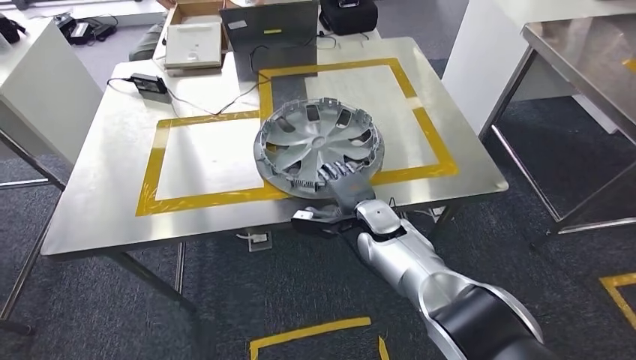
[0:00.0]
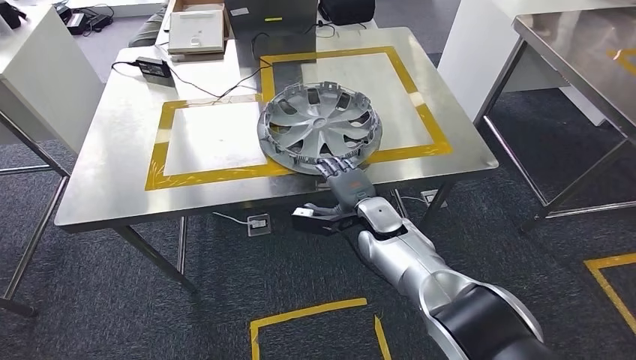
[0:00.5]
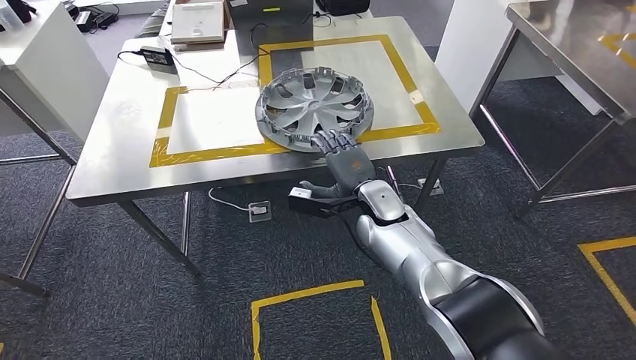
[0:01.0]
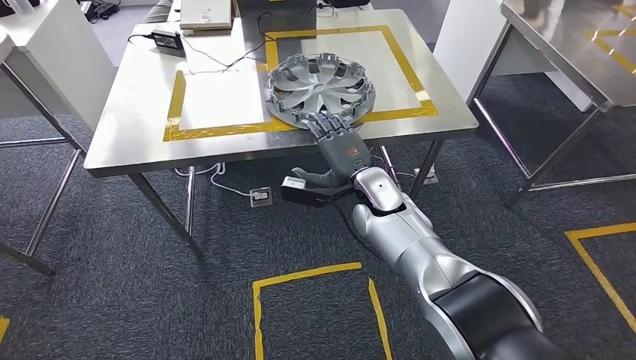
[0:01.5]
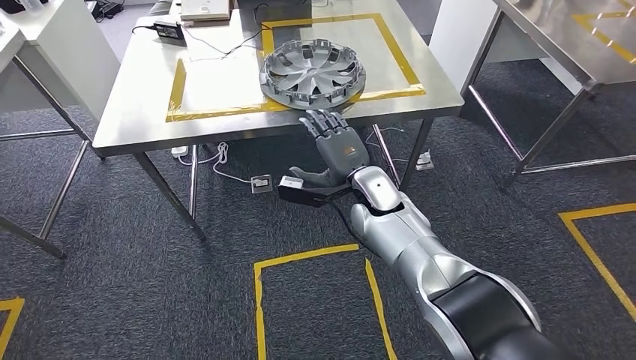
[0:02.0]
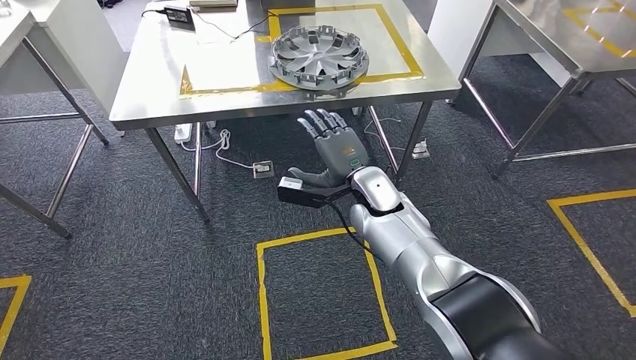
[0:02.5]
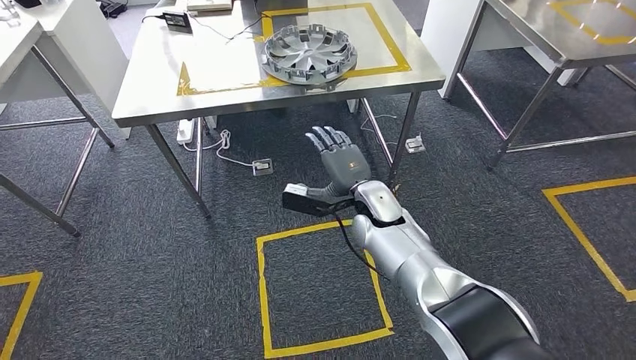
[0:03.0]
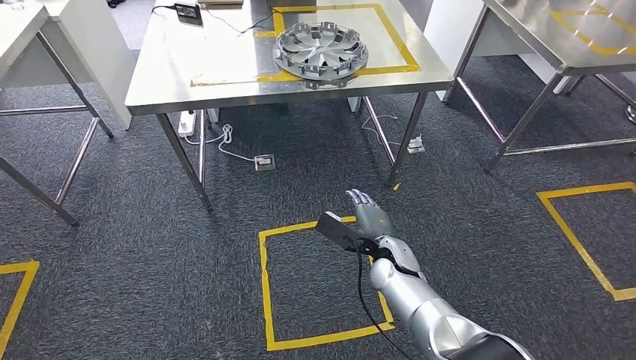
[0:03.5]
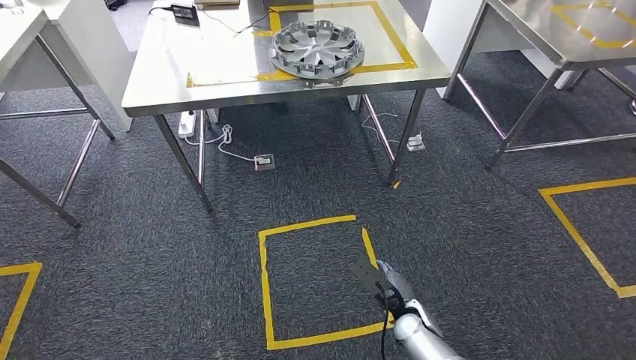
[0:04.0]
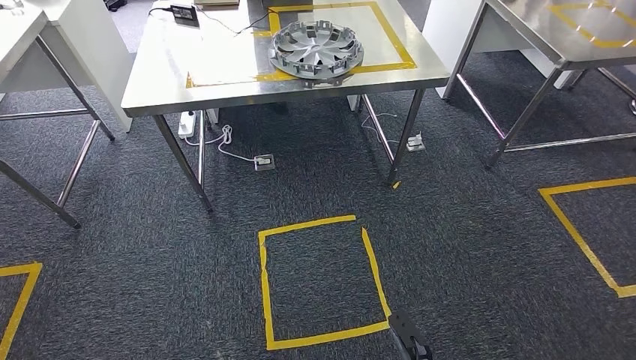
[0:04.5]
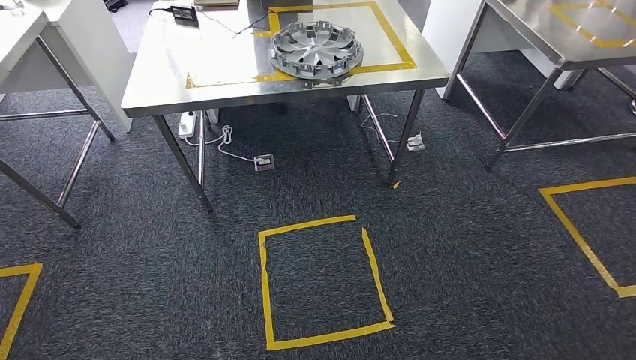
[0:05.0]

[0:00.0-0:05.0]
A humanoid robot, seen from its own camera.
Step, 0:00.5 to 0:05.0: Move to the initial position of the workbench.
